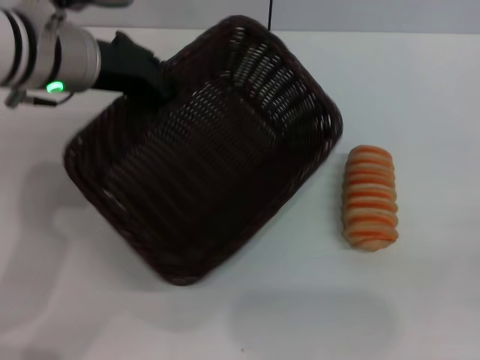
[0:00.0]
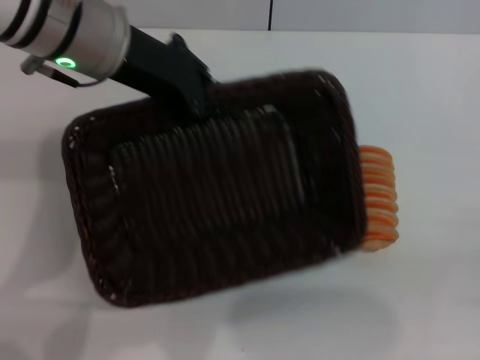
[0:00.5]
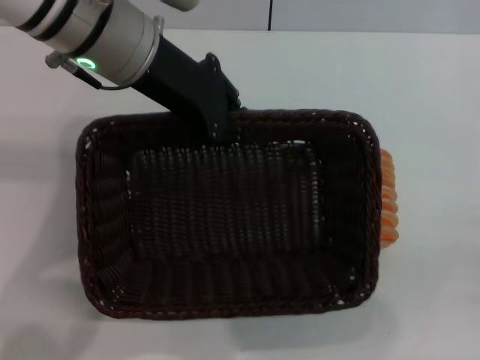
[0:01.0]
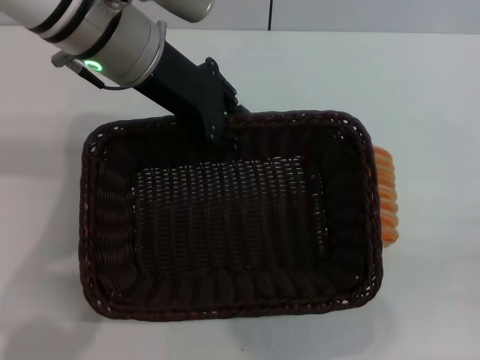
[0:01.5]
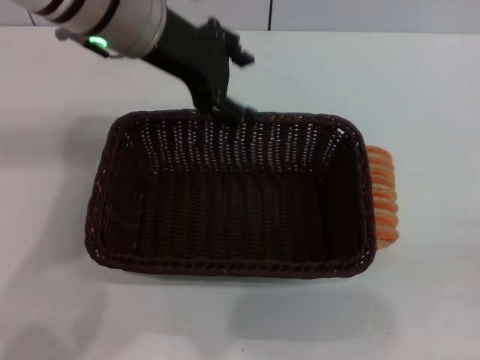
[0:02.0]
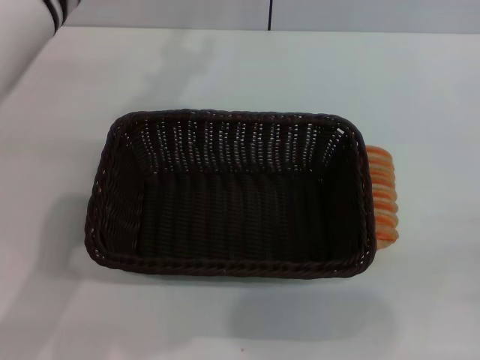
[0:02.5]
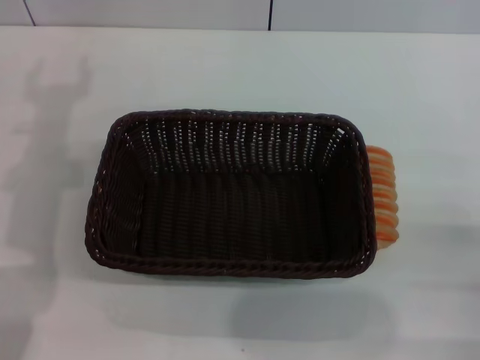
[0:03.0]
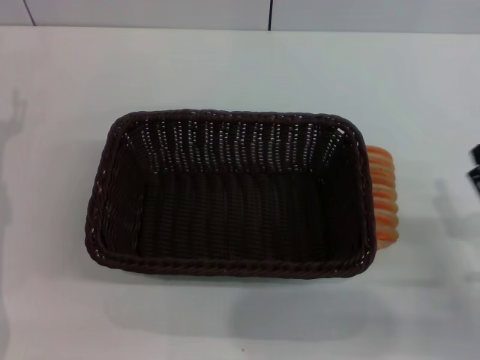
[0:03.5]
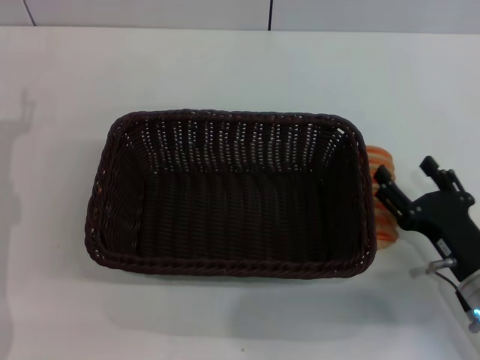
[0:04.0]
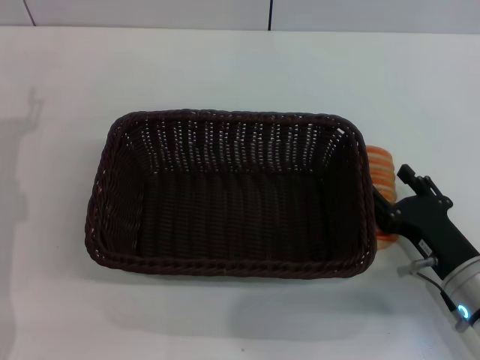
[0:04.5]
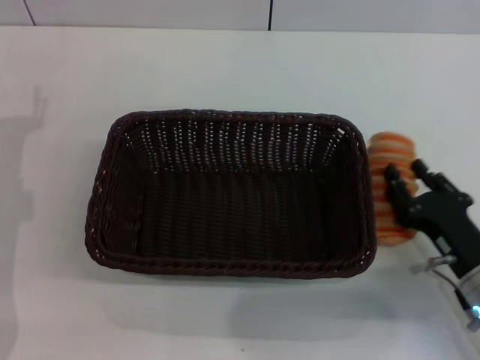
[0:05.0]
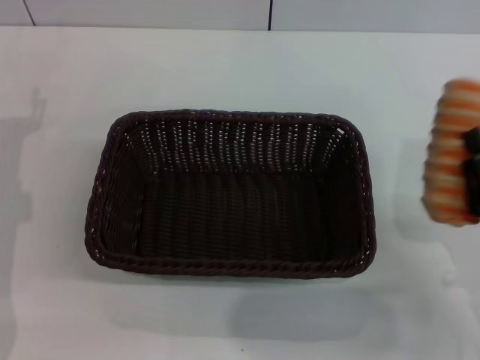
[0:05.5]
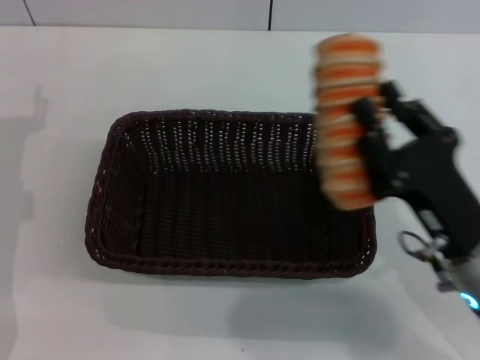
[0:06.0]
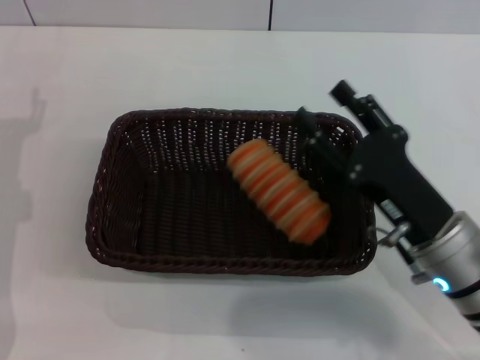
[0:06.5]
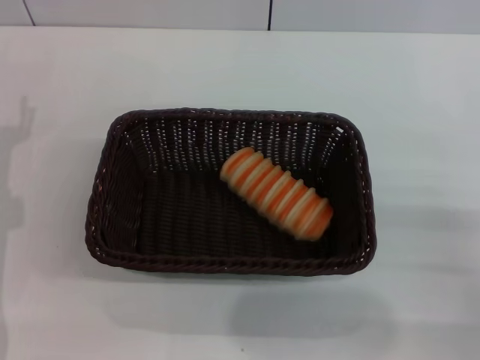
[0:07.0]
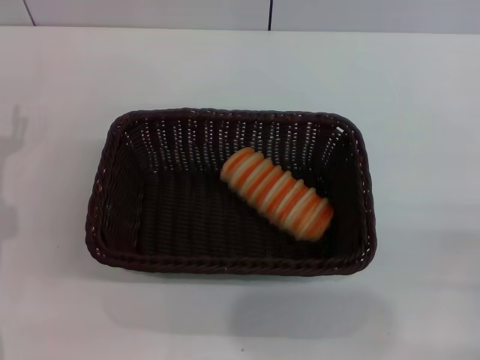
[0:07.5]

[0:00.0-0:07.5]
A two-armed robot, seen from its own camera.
Step, 0:00.5 to 0:02.0: Place the dark basket in the center of view with the left gripper.
Step, 0:02.5 to 0:05.0: Pick up the long bread with the right gripper.
Step, 0:05.5 to 0:06.5: Place the long bread into the dark basket with the right gripper.
0:00.0 to 0:02.0: The left gripper ends up approximately 5 cm from where it was, and opens up.
0:02.0 to 0:04.0: The left gripper travels to the left, downward and backward by approximately 25 cm. Meanwhile the right gripper travels to the left and forward by some 15 cm.
0:04.0 to 0:05.5: The right gripper shifts by roughly 5 cm, and closes its fingers.
0:05.5 to 0:07.5: The right gripper shifts about 10 cm to the right, and opens its fingers.
